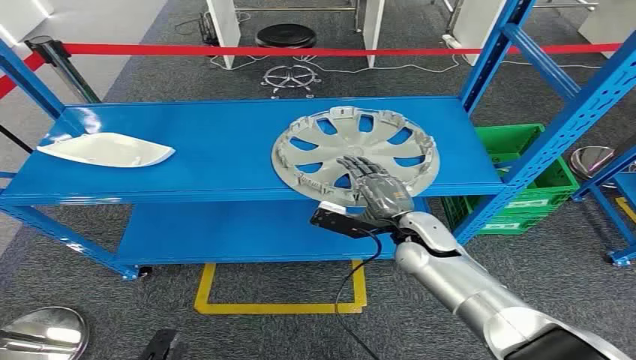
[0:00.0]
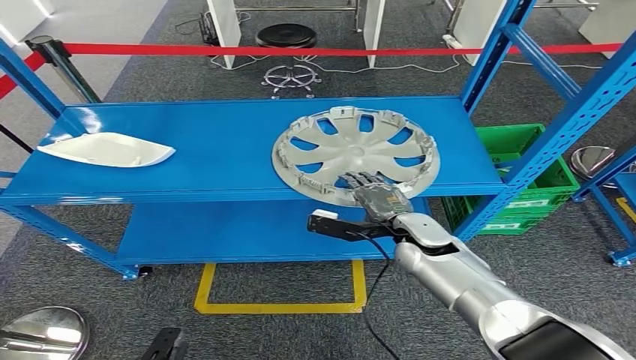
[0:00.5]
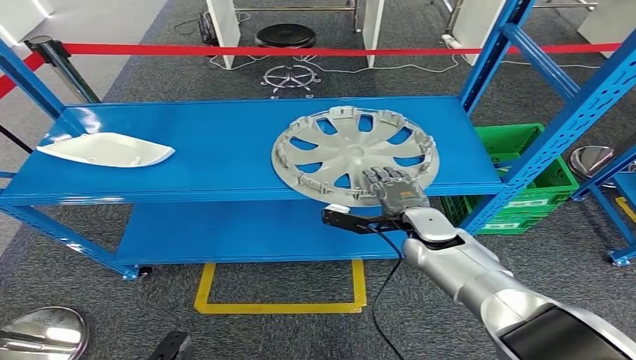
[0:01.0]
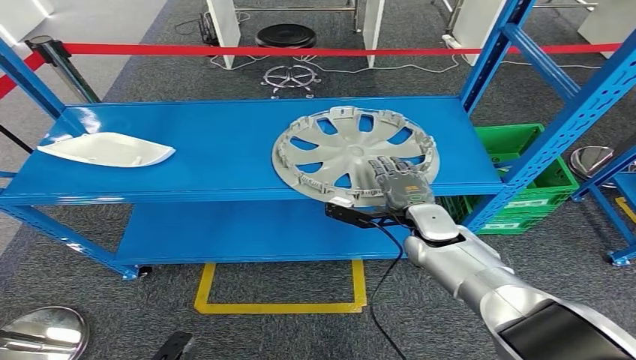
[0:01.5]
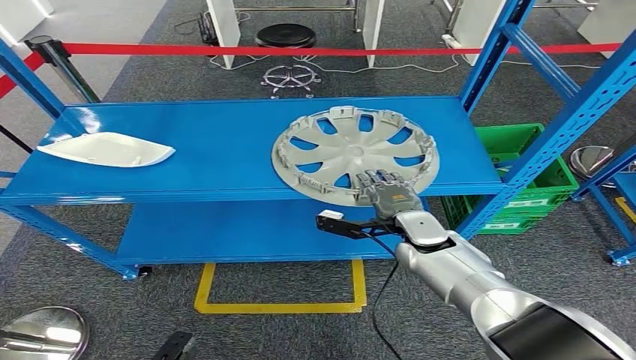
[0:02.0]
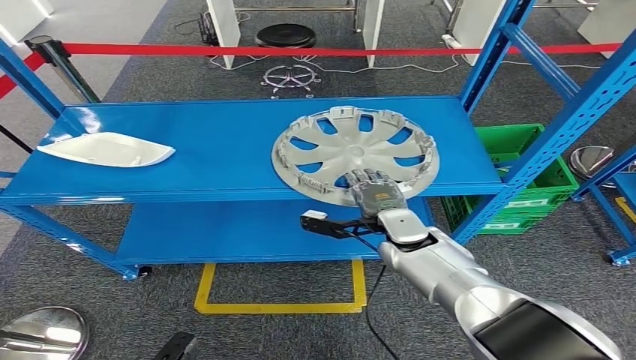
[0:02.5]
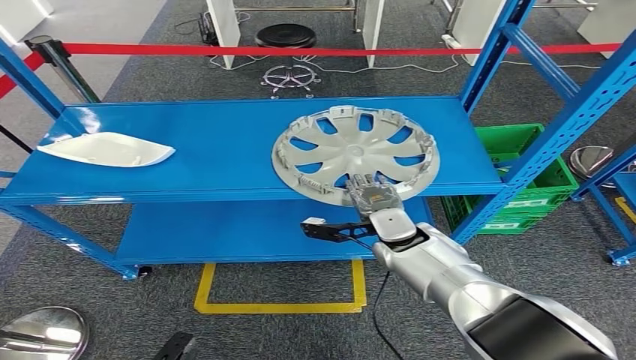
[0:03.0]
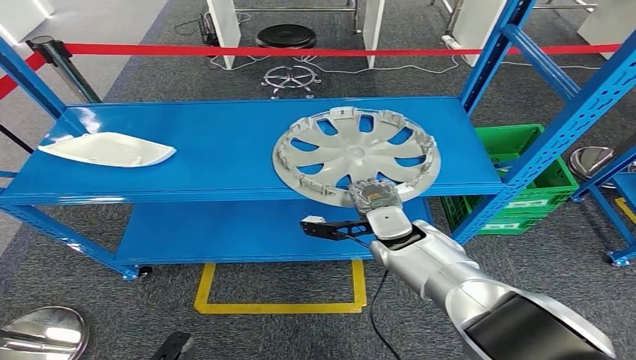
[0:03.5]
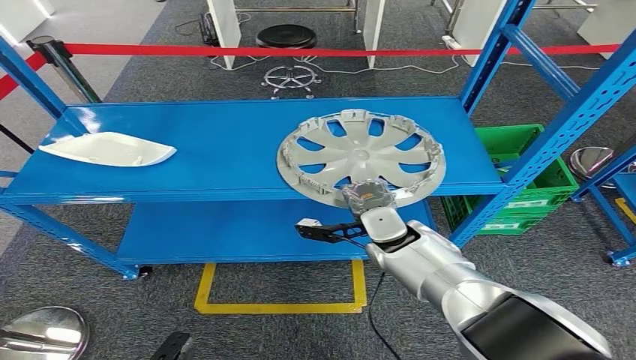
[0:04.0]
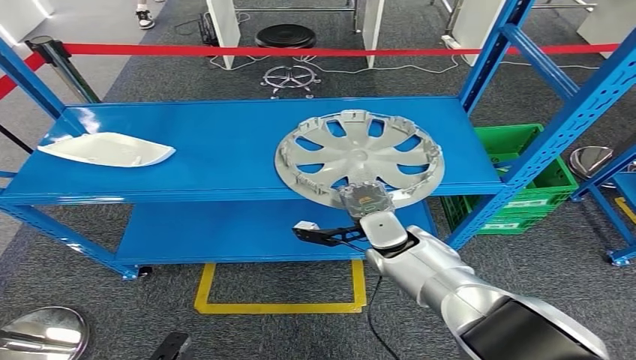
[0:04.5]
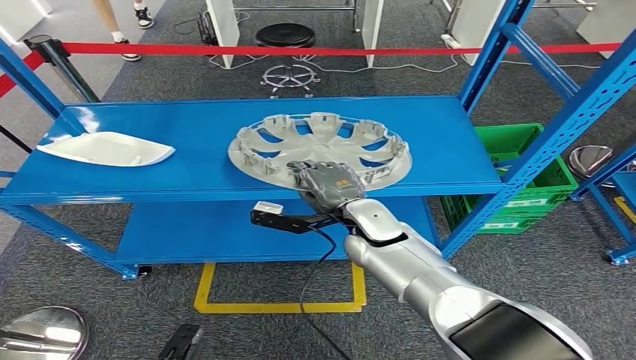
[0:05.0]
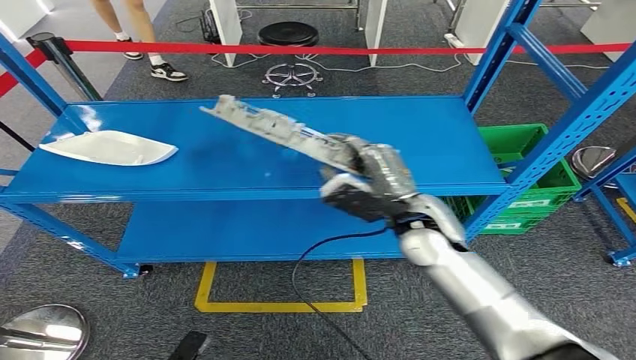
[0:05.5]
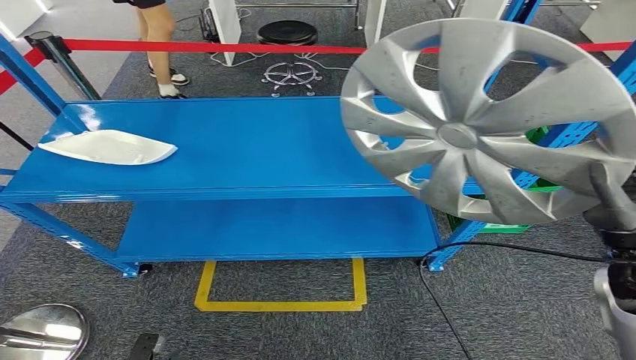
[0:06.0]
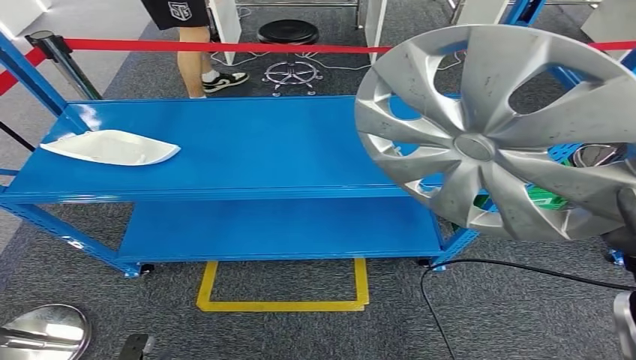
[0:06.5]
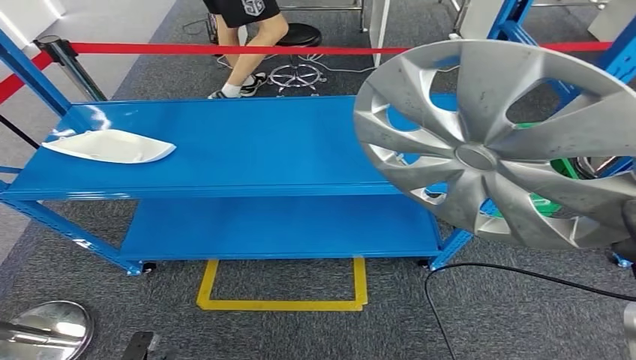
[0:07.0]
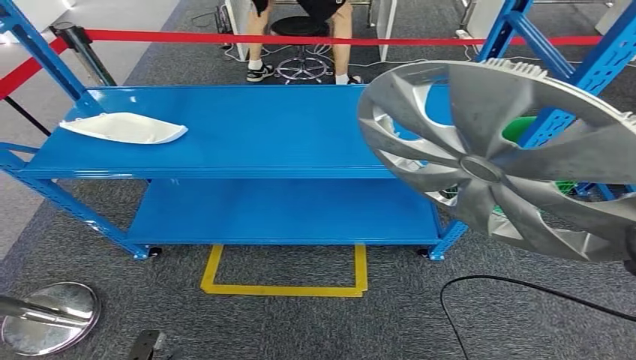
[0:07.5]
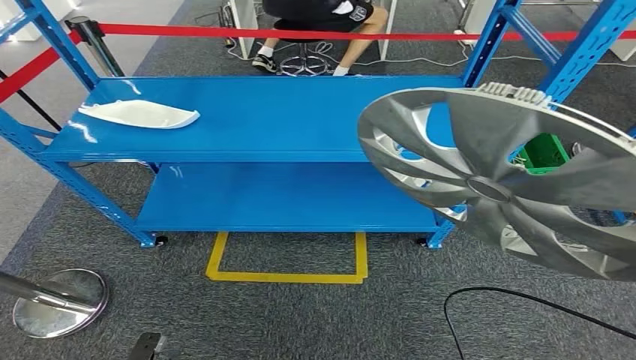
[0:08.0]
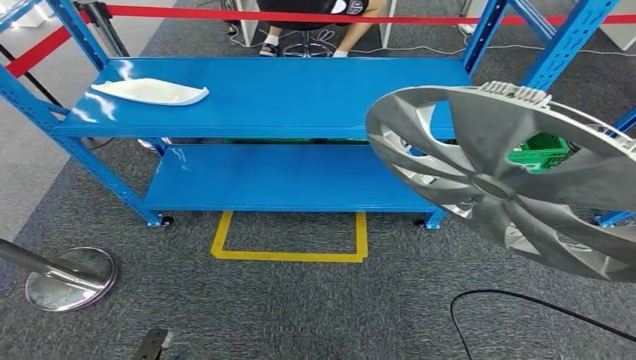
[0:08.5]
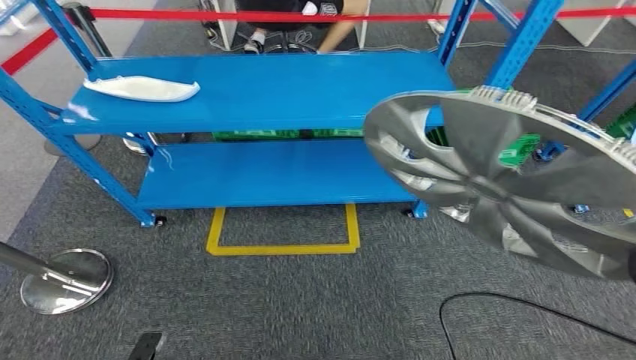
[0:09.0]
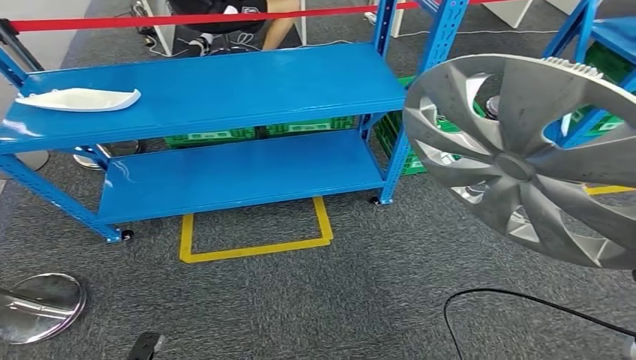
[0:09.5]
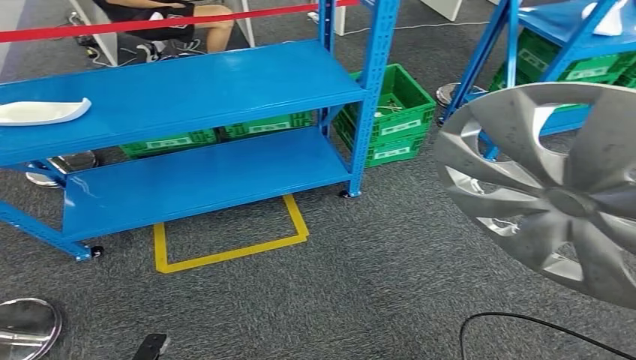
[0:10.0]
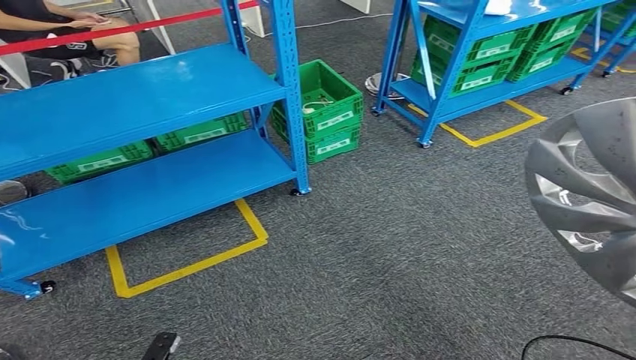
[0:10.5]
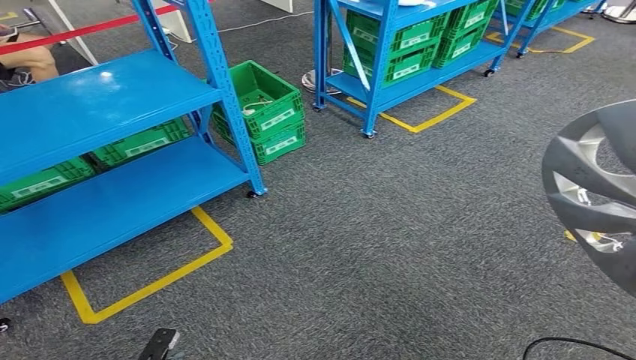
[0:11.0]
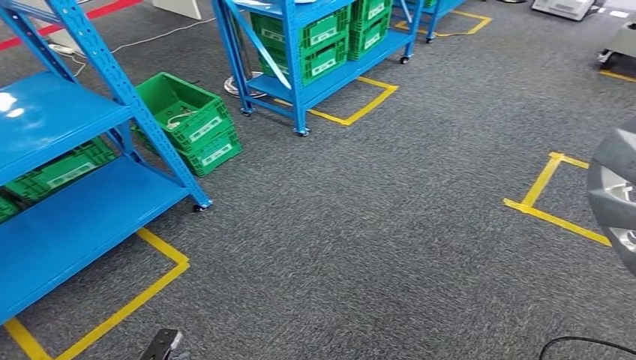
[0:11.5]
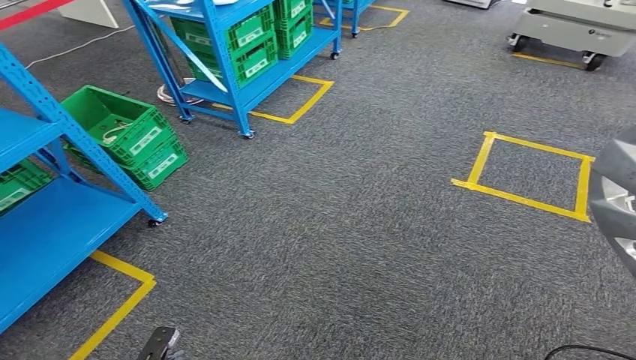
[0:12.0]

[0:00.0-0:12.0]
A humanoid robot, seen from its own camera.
Step, 0:00.0 to 0:06.5: Take small components from the rack.
0:02.0 to 0:04.0: The right hand moves to the left, some 5 cm.

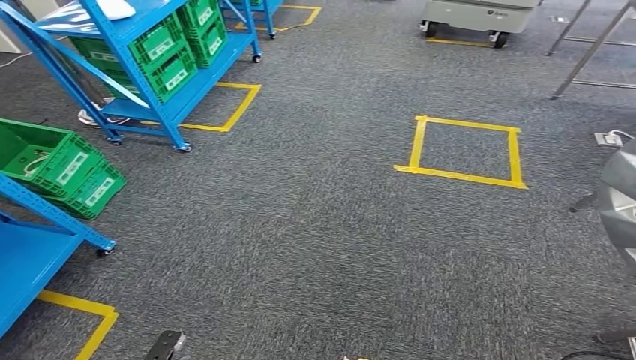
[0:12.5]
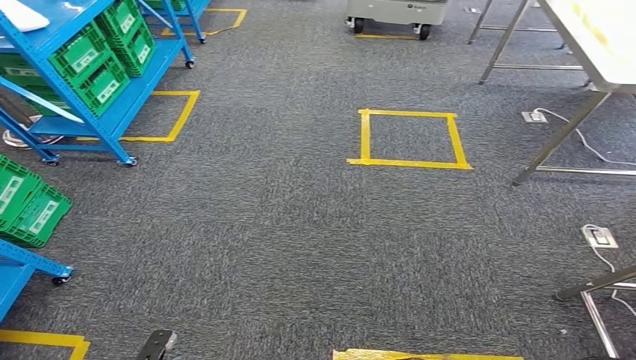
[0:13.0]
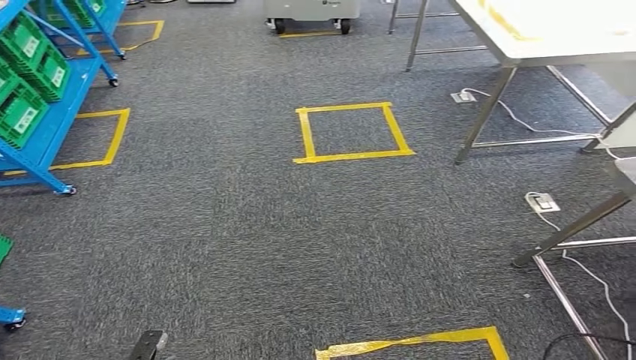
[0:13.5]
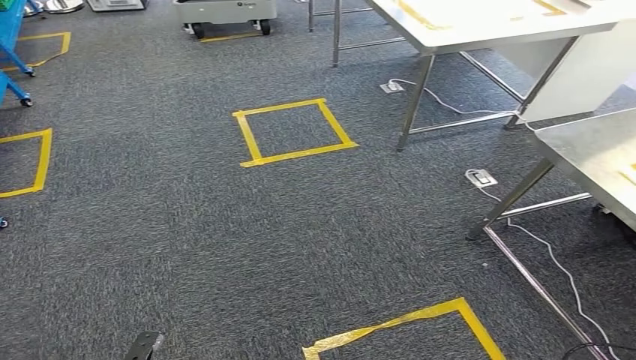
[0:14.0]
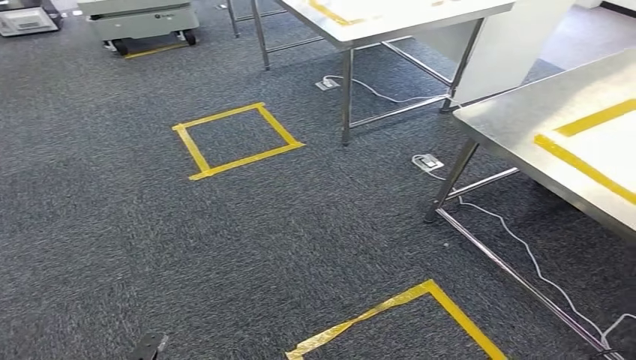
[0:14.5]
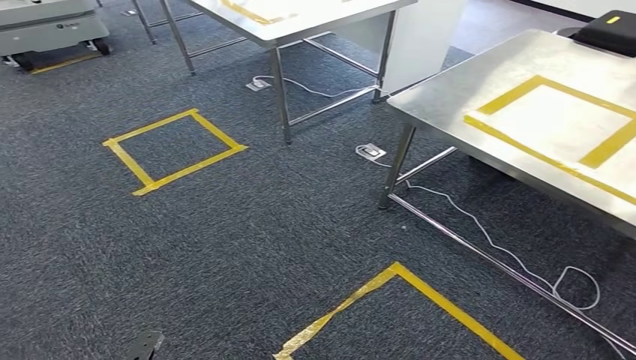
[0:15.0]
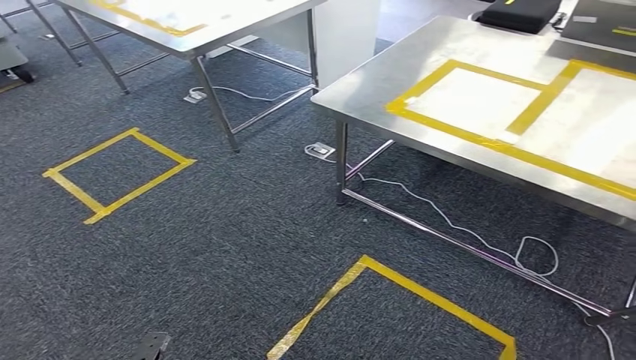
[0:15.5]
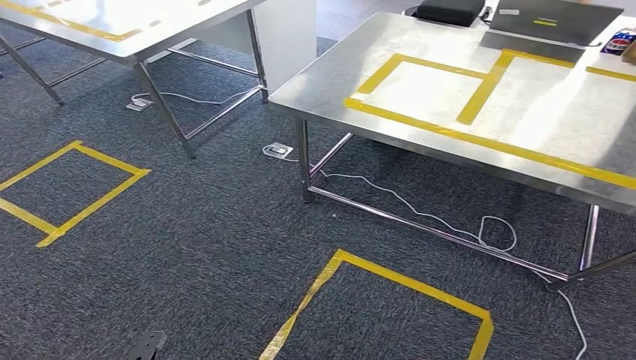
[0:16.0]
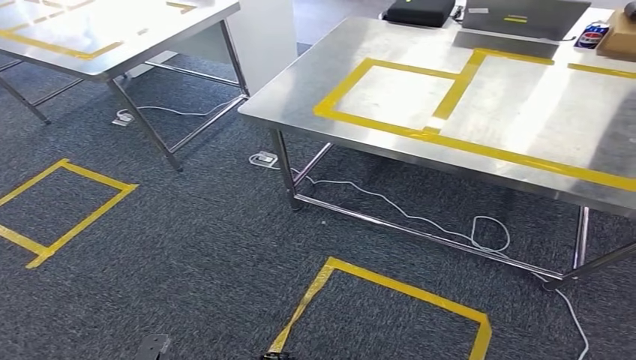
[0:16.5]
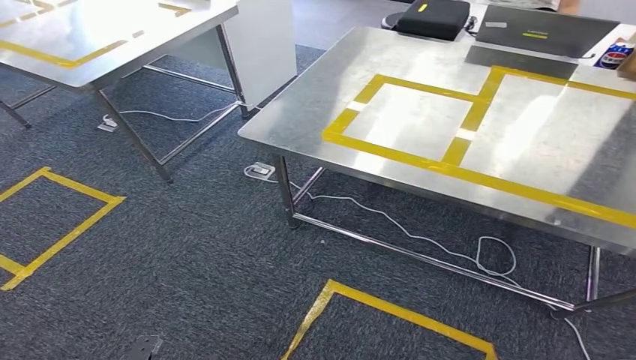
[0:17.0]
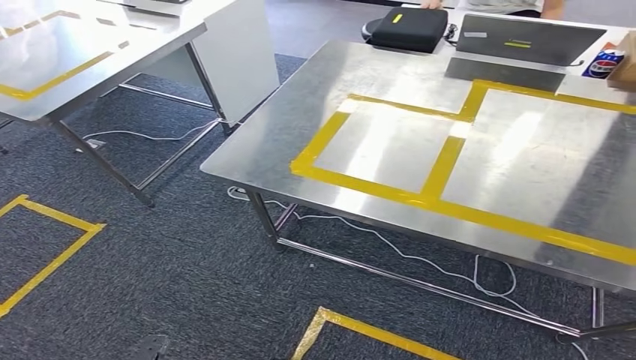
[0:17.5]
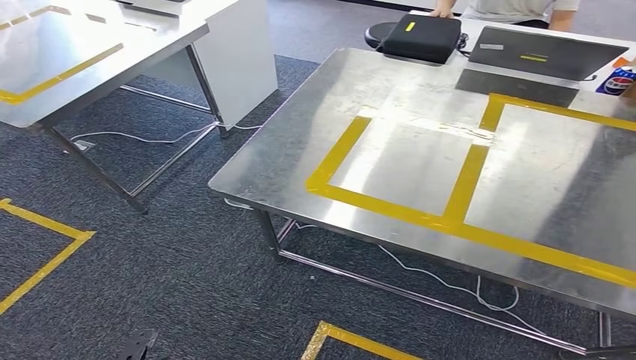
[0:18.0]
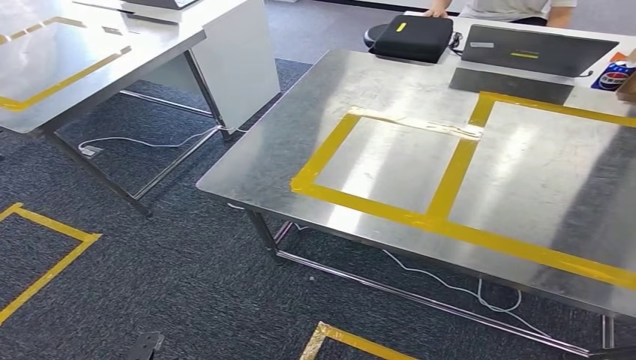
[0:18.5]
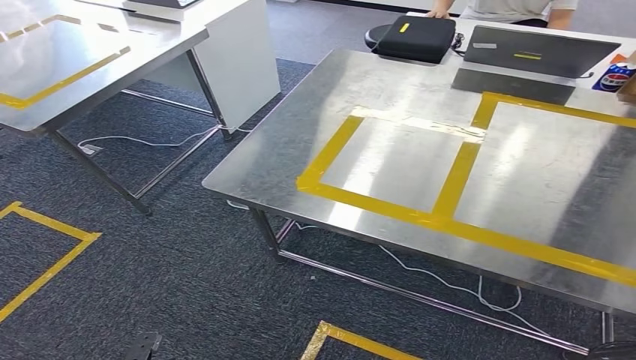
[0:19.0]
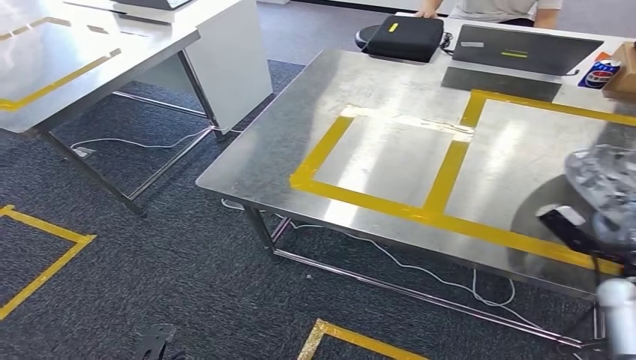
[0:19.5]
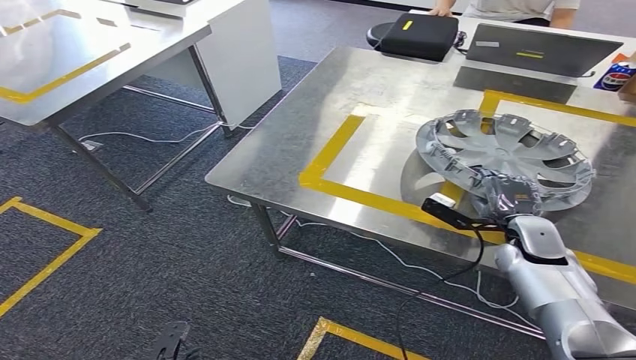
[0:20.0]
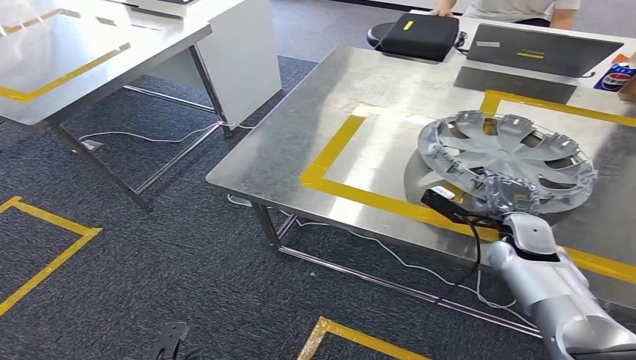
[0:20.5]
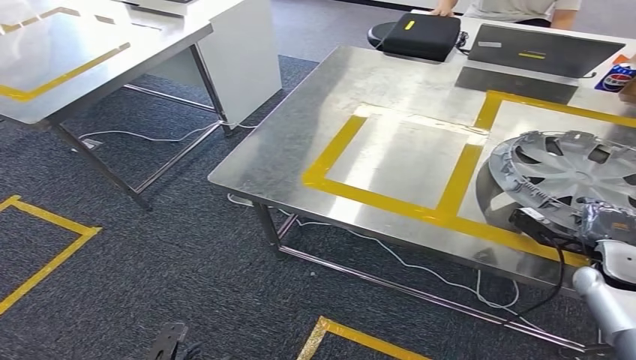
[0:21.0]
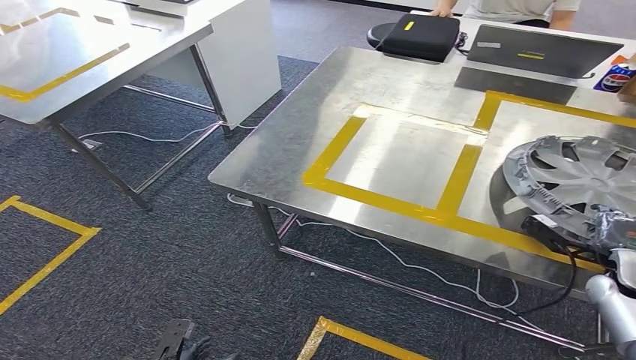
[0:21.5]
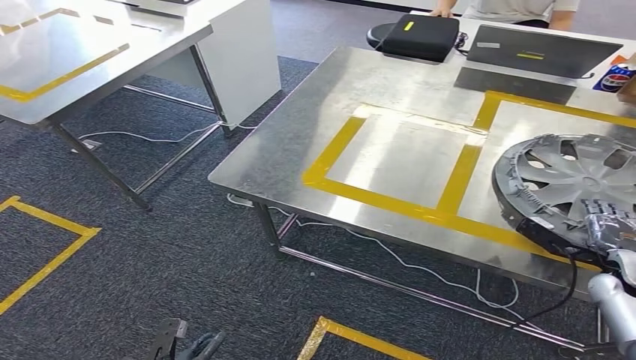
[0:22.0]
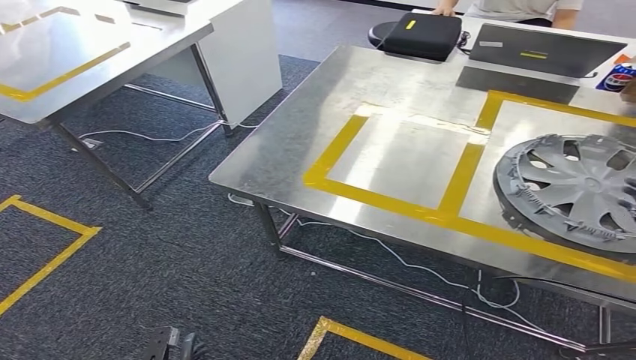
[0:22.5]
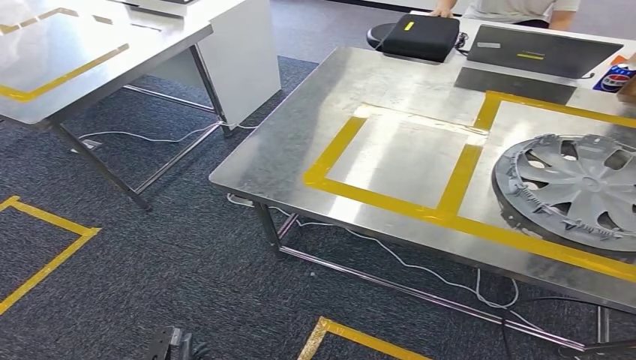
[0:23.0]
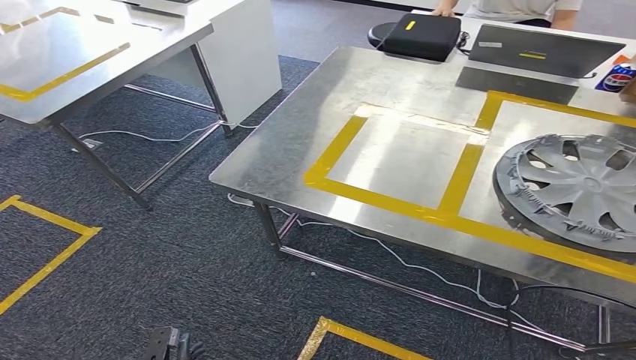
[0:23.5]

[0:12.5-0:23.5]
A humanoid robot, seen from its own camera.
Step, 0:12.5 to 0:18.0: Move the small parts to the workbench.
0:20.0 to 0:21.5: The right hand moves to the right and backward, about 15 cm.
0:21.5 to 0:23.5: The right hand moves upward and backward, roughly 20 cm.
